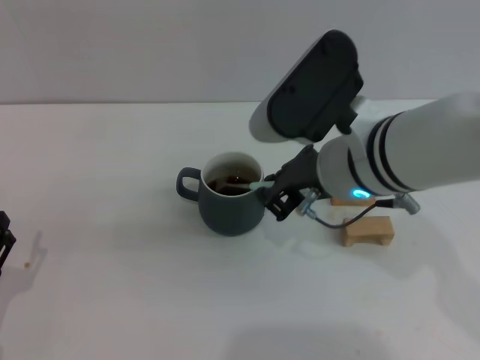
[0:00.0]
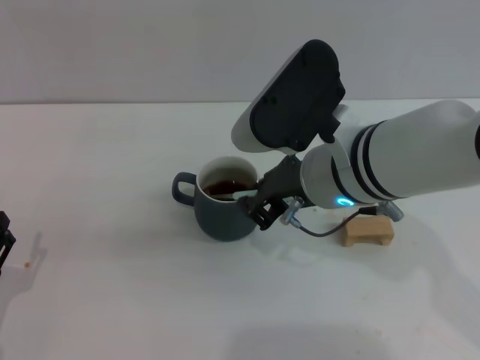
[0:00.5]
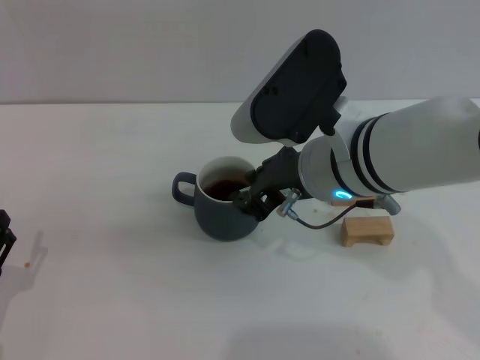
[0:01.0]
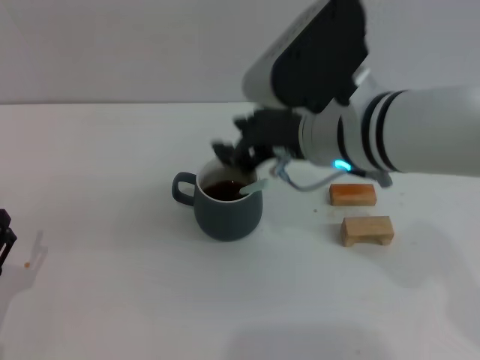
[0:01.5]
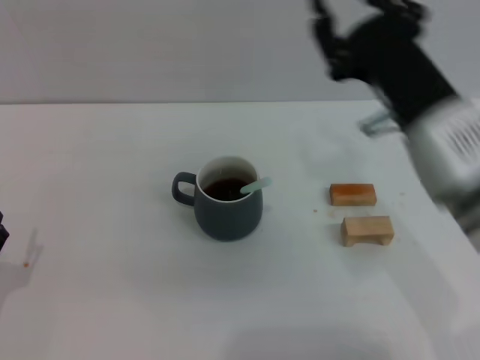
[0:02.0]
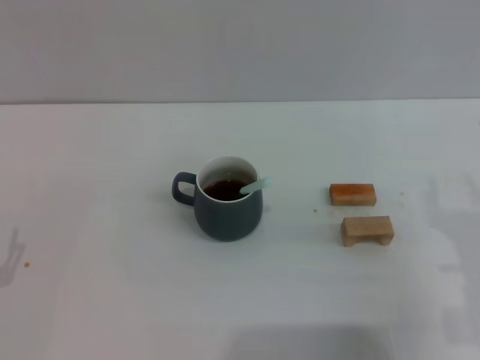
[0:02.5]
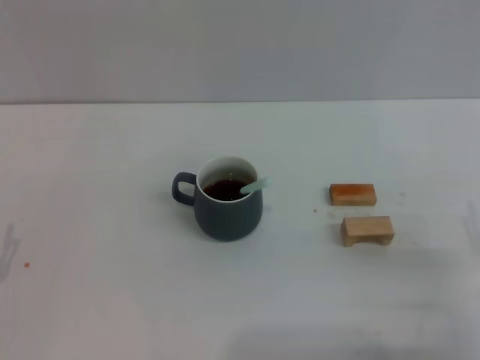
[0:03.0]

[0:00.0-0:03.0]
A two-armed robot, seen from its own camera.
Task of the whole recording: Move the grey cup to the center, lift the blue spoon, stir it three times in the cup, and put the spoon into the cup.
0:00.0 to 0:01.5: The right gripper opens.
0:01.5 to 0:03.0: The right gripper goes roughly 30 cm to the right, downward and backward, and opens.

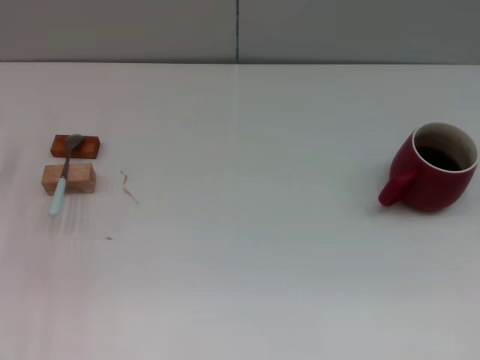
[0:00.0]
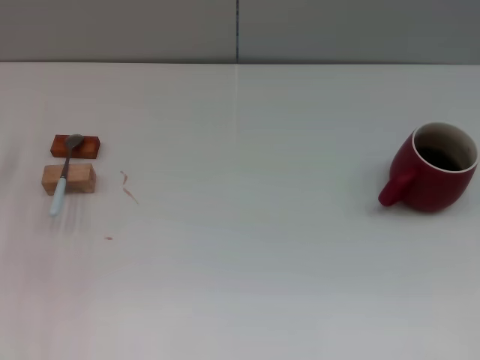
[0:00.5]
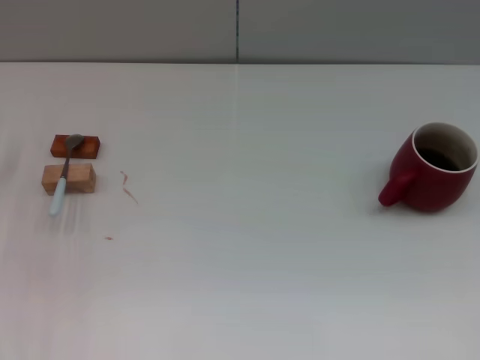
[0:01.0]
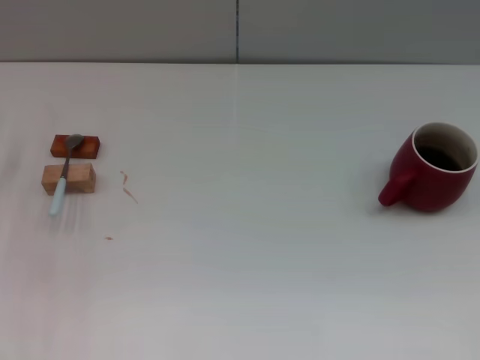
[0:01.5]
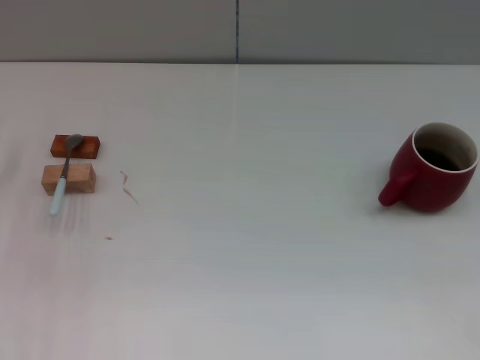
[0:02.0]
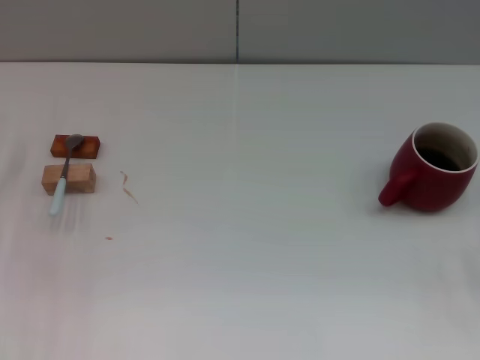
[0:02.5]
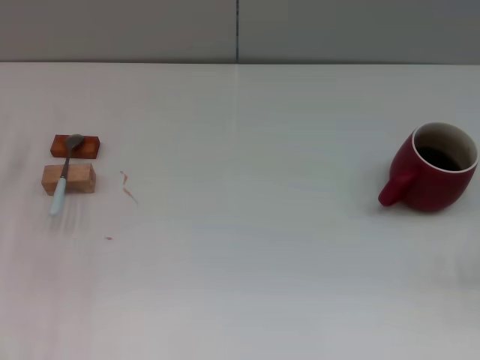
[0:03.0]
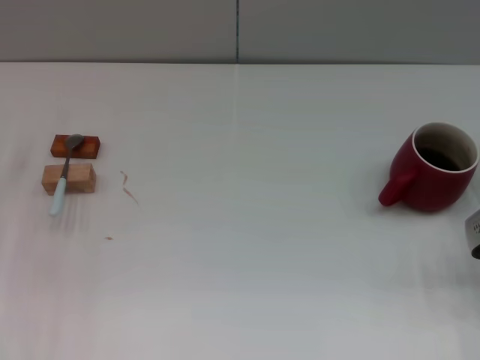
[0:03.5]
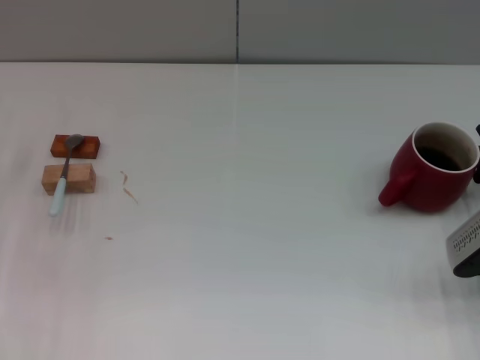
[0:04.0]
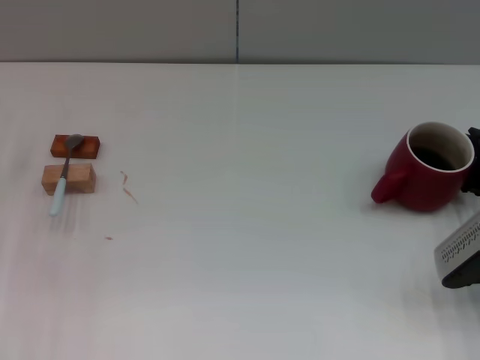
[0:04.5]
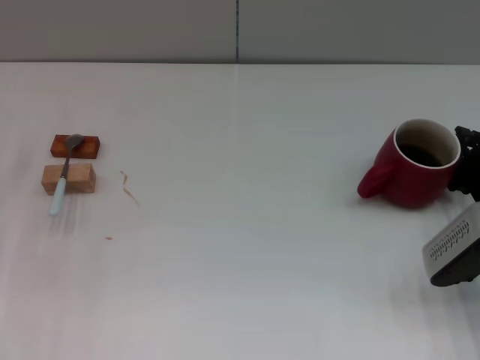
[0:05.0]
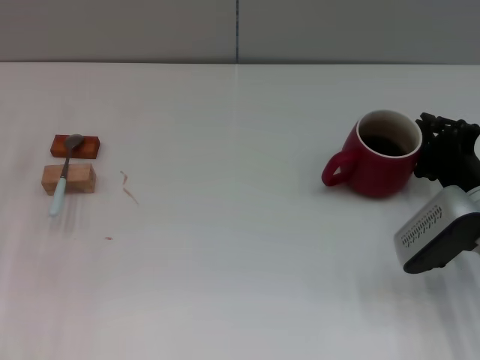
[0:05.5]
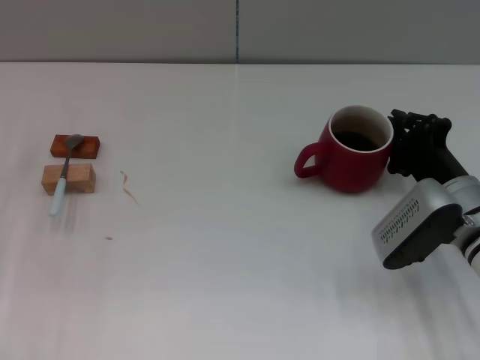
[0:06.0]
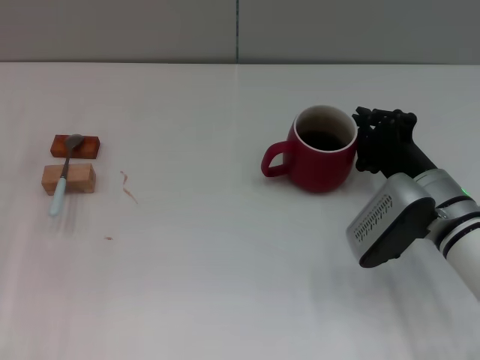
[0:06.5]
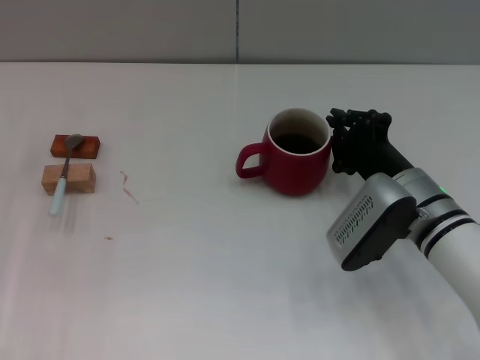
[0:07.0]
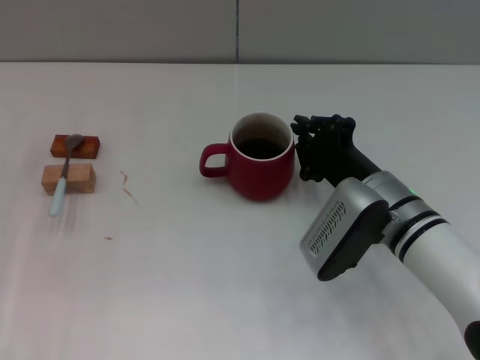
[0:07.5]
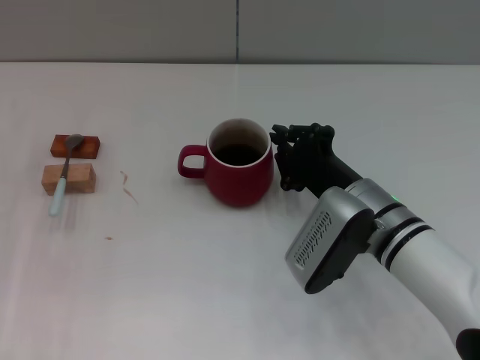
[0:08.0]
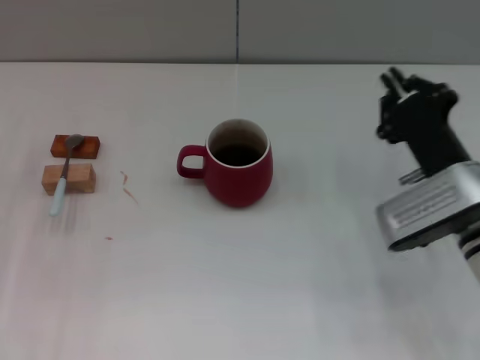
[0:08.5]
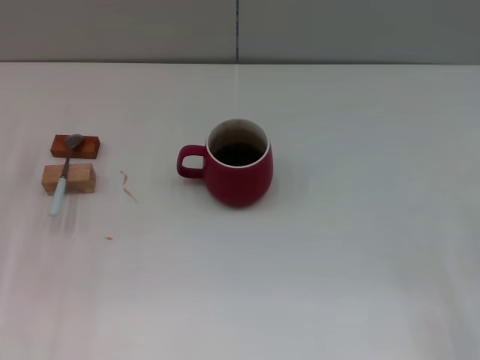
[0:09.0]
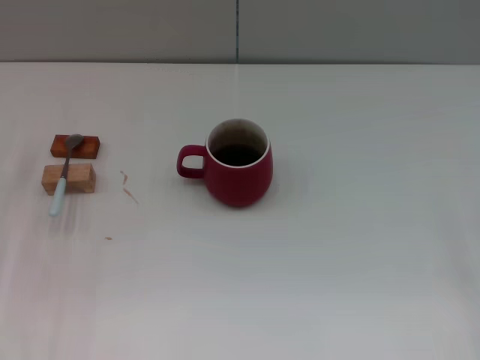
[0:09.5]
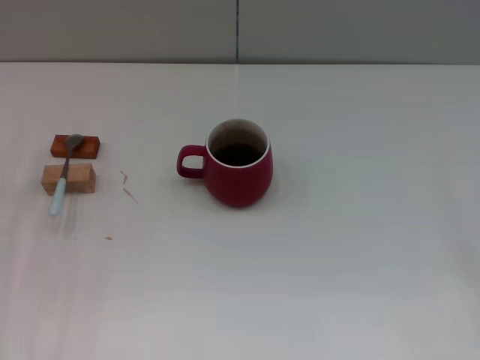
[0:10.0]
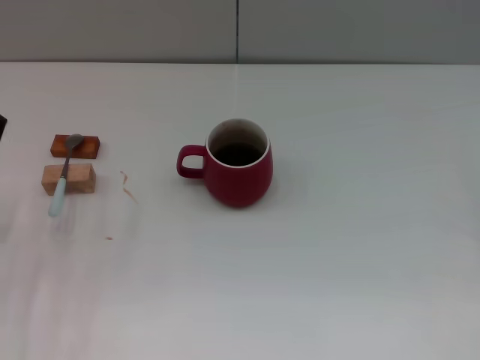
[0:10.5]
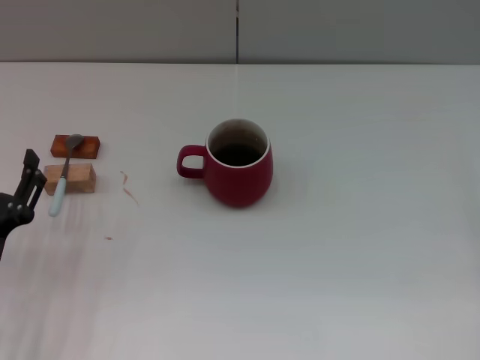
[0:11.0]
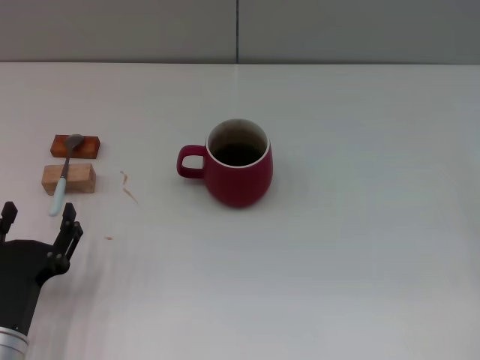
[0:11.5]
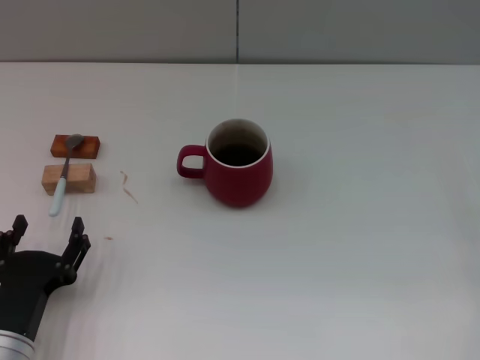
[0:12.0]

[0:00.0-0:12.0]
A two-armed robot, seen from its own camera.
Task of the whole recording: Move the red cup to the center, lift the blue spoon, stir it three times in the cup, and put the spoon into the cup.
Step, 0:00.0 to 0:08.0: Move the cup with coffee to the center of view with the right gripper.
0:02.0 to 0:04.0: The right gripper is displaced to the left by approximately 10 cm.
0:04.0 to 0:06.0: The right gripper heads to the left, covering some 10 cm.
0:06.0 to 0:08.0: The right gripper travels to the left by approximately 10 cm.
0:08.0 to 0:10.0: The right gripper heads to the right, covering some 25 cm, and opens its fingers.
0:10.0 to 0:12.0: The left gripper travels backward, to the right and downward by roughly 20 cm.

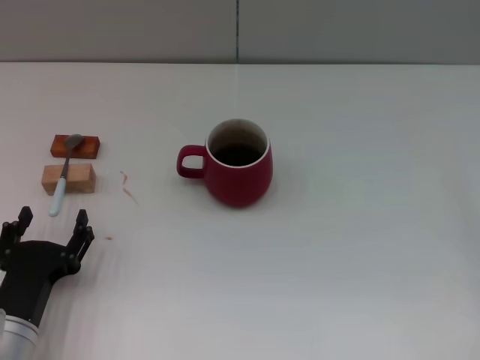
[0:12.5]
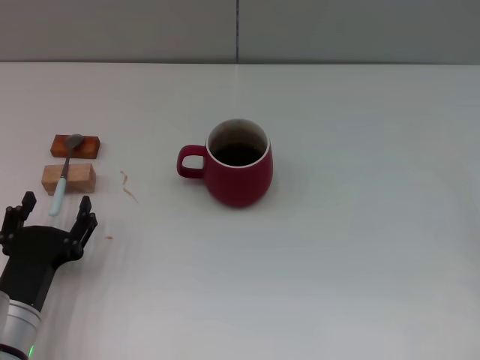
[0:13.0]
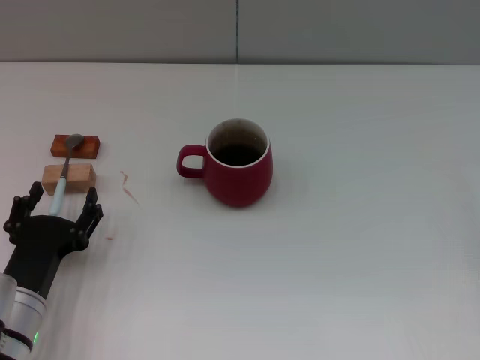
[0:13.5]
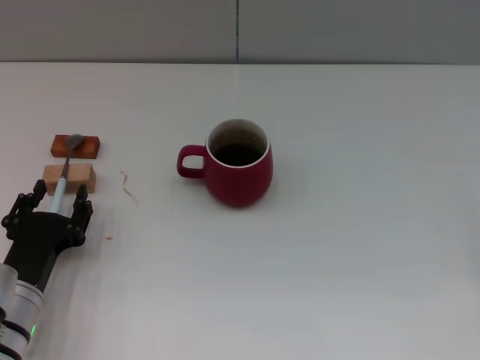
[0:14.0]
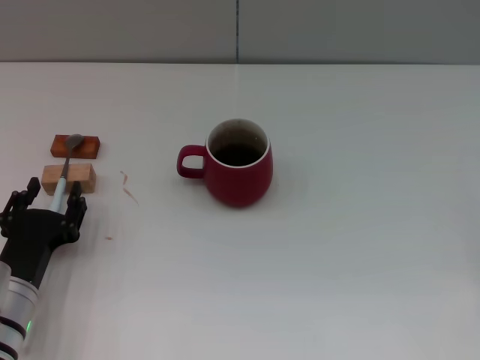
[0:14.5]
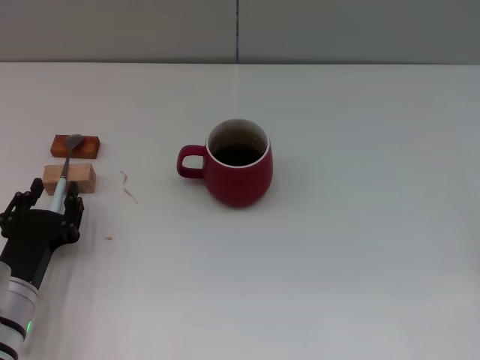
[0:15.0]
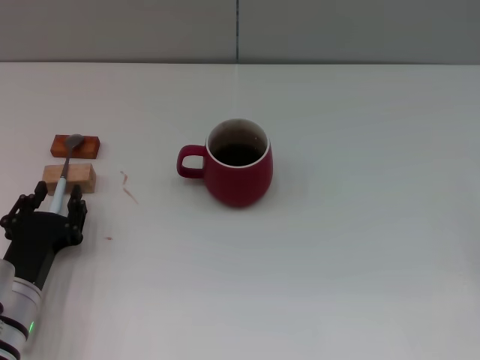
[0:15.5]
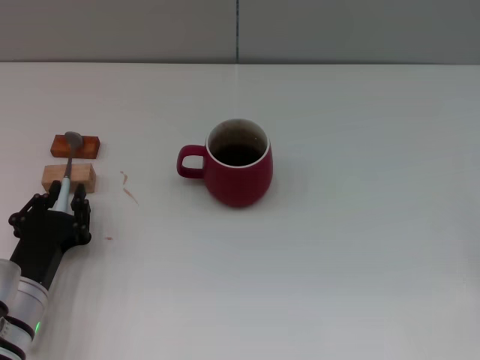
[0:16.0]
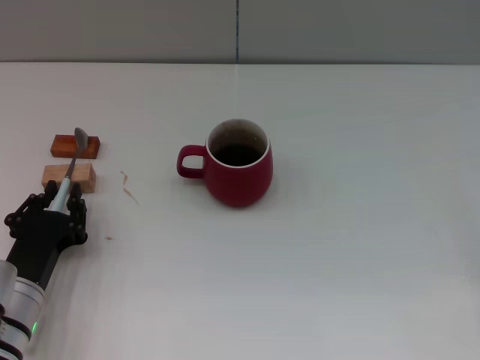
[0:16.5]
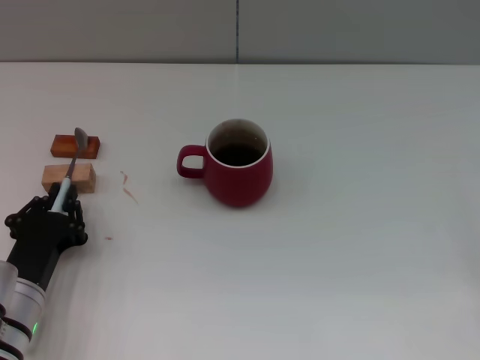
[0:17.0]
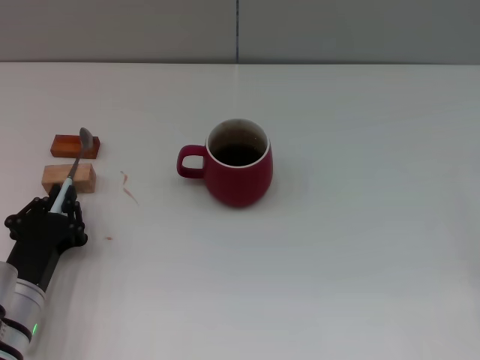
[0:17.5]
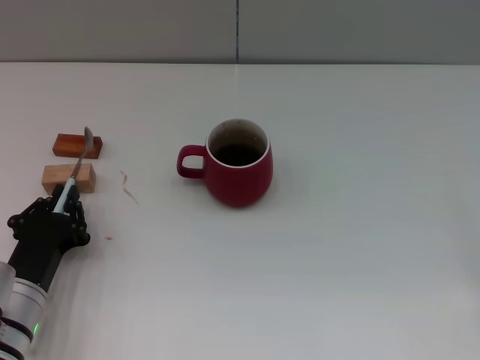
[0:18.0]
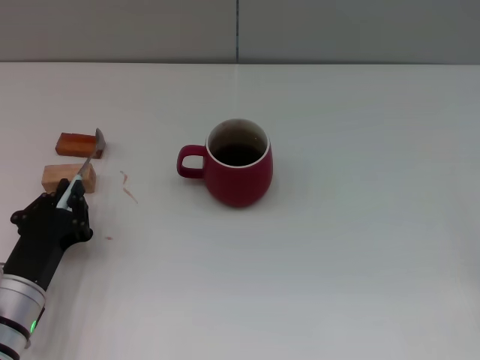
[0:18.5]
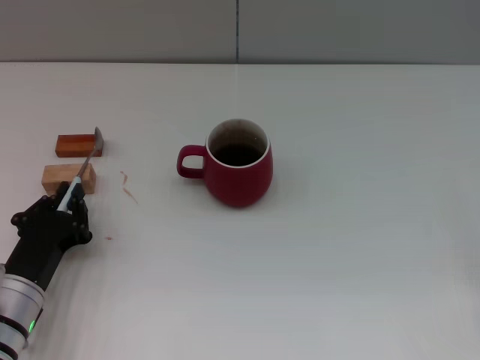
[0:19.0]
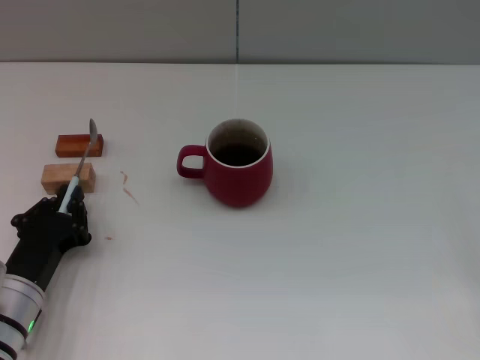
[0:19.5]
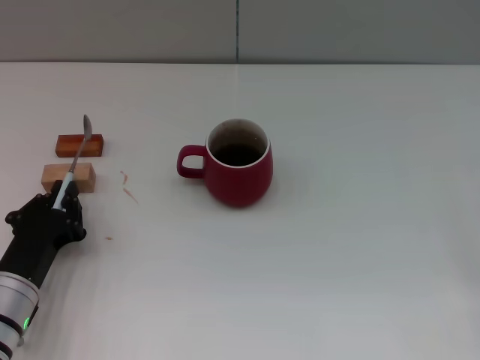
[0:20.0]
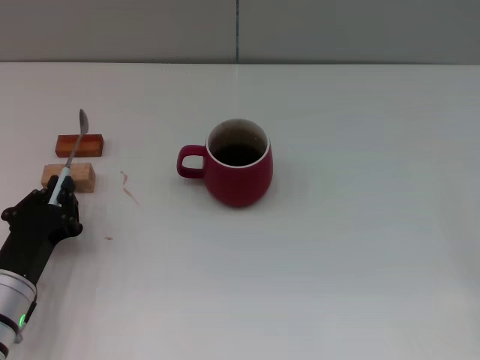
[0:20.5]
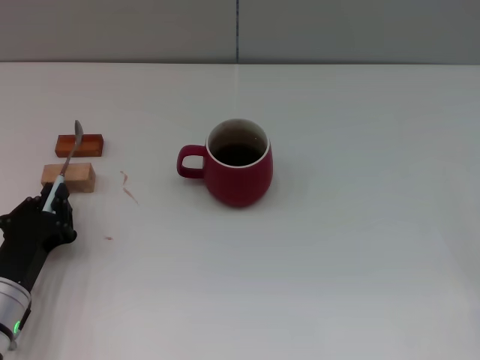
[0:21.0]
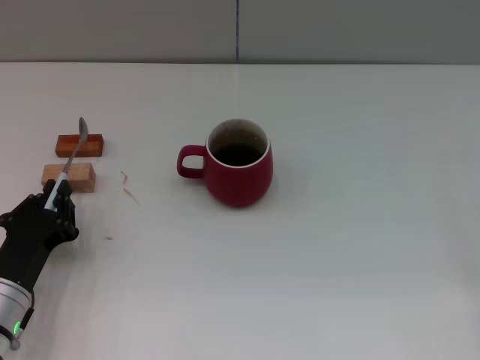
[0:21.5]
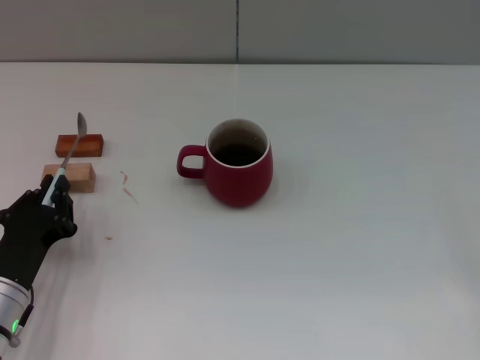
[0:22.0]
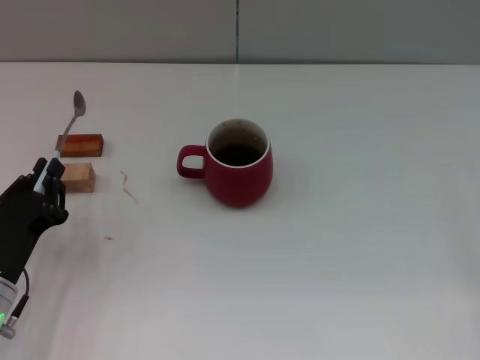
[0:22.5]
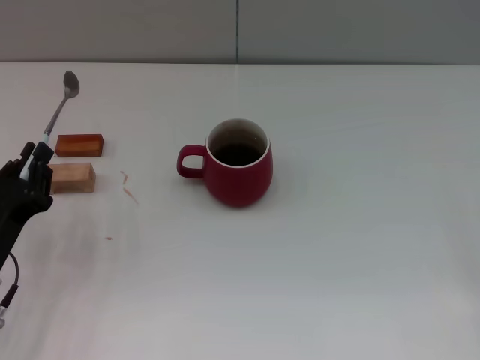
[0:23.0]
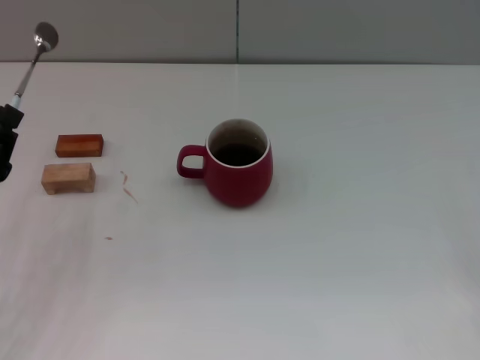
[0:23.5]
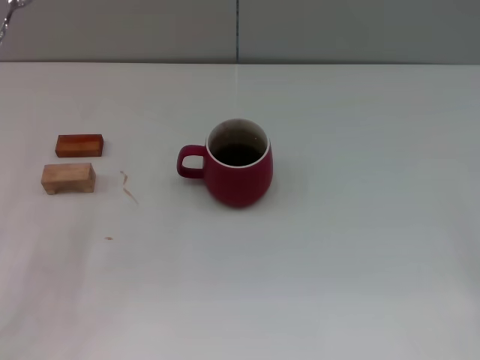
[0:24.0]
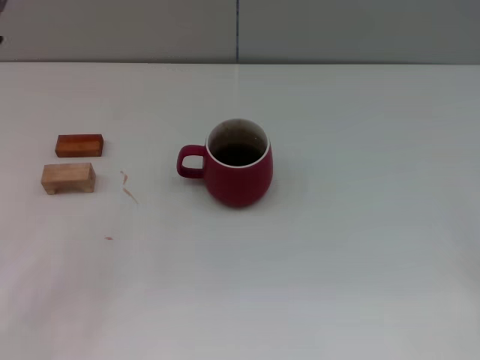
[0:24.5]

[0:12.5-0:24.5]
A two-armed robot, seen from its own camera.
Task of the whole recording: Move the red cup to the center, lift the blue spoon, stir it three times in the cup, and put the spoon into the cup.
Step, 0:12.5 to 0:22.5: Pick up the spoon with the left gripper.
0:12.5 to 0:14.5: There are only small adjustments of the grippers.
0:14.5 to 0:16.5: The left gripper closes.
0:16.5 to 0:18.5: The grippers move only a little.
0:18.5 to 0:20.5: Both grippers stay put.
0:20.5 to 0:22.5: There are only small adjustments of the grippers.
0:22.5 to 0:24.5: The left gripper heads upward, covering roughly 10 cm.
